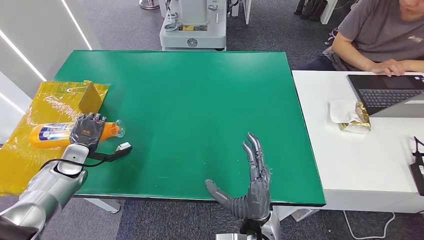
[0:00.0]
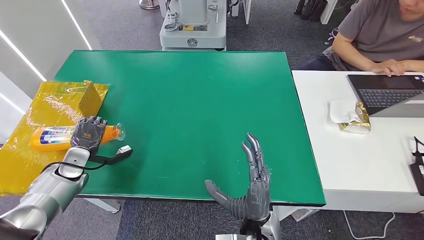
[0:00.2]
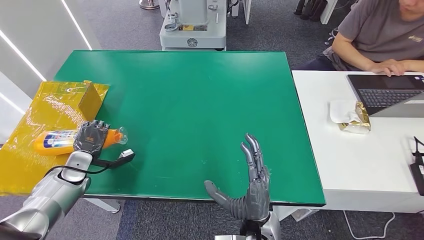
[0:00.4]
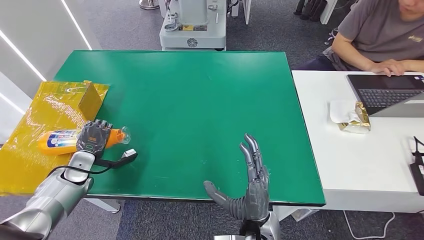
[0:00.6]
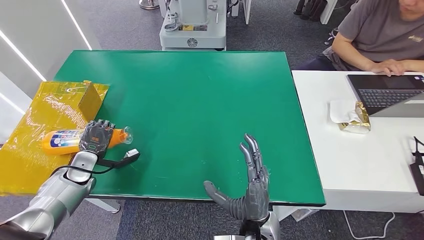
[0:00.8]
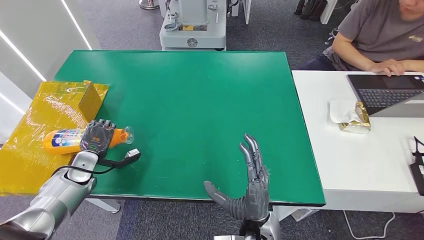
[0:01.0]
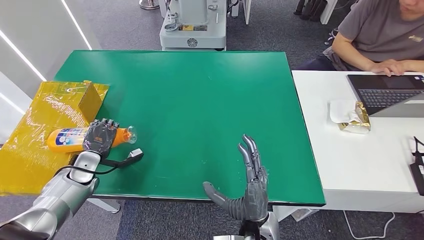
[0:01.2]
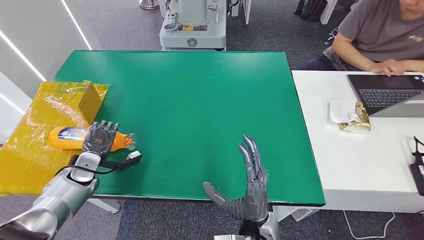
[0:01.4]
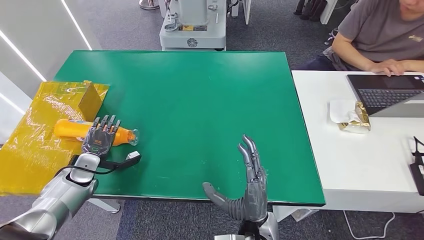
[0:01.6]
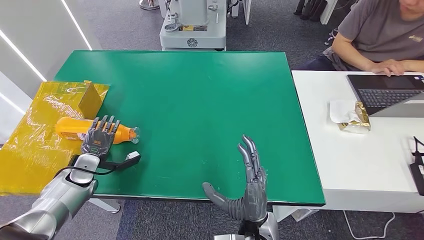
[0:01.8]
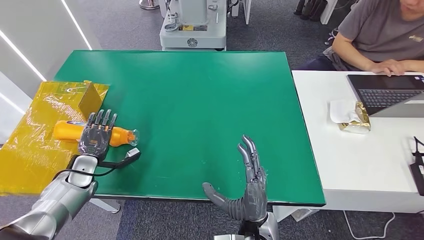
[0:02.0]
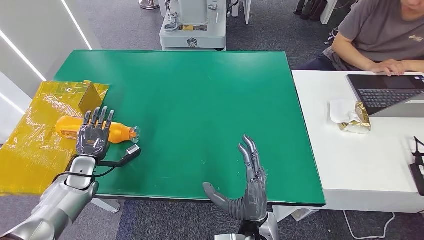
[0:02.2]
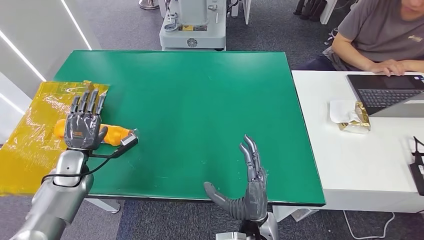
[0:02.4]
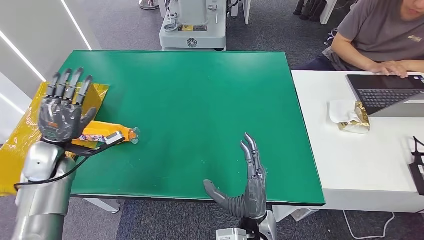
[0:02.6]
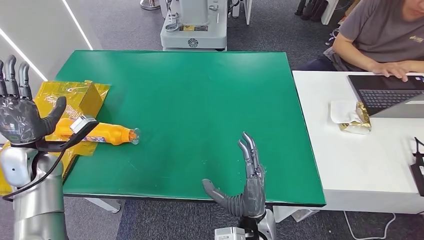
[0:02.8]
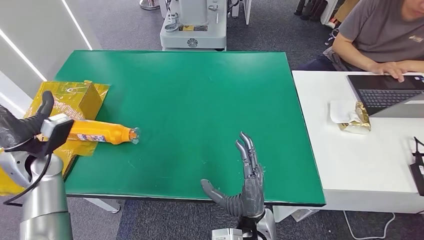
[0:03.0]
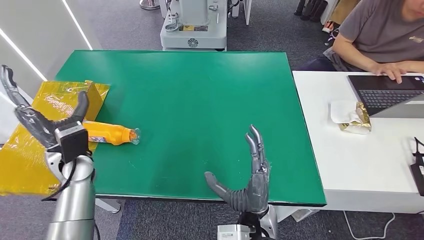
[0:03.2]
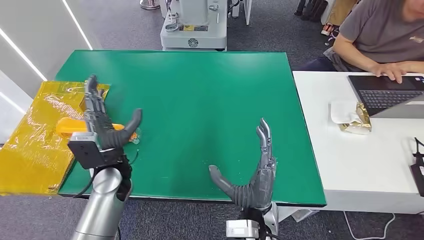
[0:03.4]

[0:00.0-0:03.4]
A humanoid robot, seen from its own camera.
Step, 0:00.0 to 0:03.2: Turn the bottle to the front side.
0:00.0 to 0:01.6: The hands move only a little.
0:01.6 to 0:03.4: The left hand moves to the right and upward, roughly 20 cm.

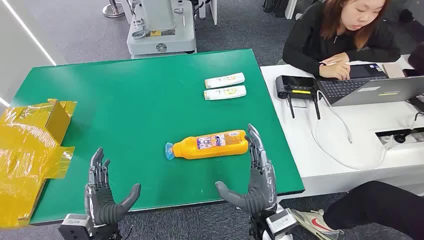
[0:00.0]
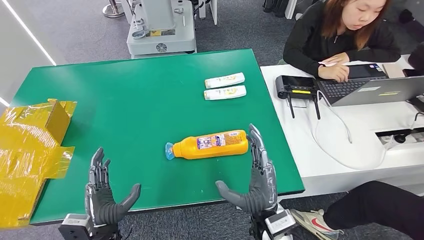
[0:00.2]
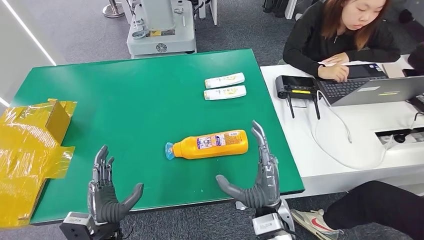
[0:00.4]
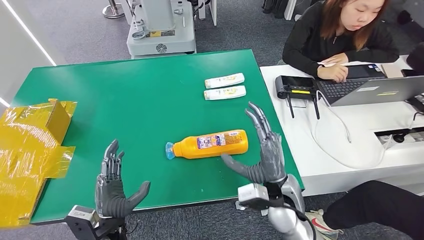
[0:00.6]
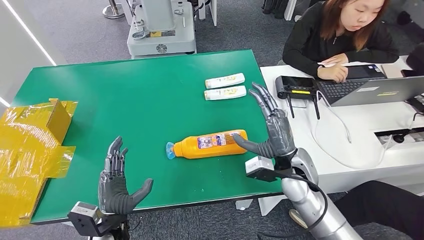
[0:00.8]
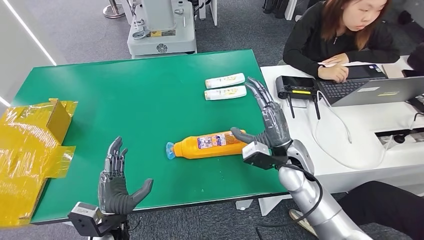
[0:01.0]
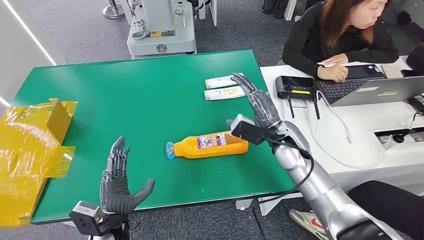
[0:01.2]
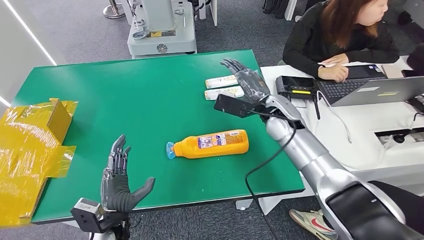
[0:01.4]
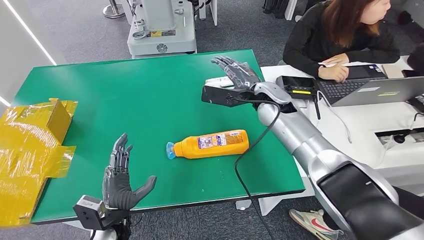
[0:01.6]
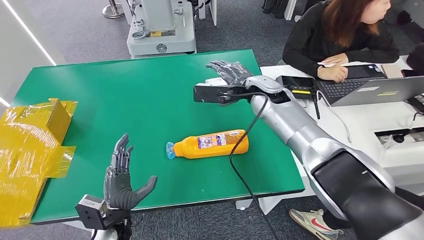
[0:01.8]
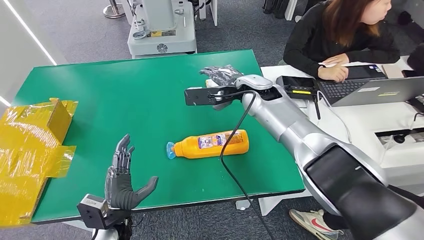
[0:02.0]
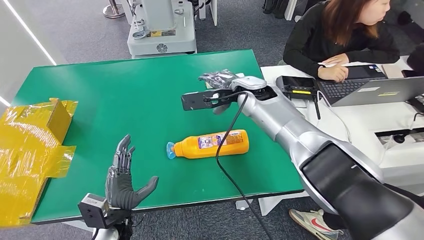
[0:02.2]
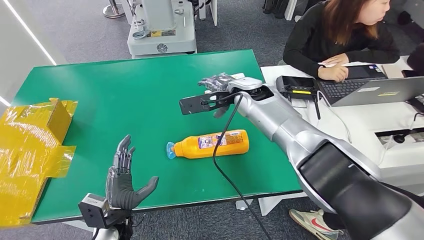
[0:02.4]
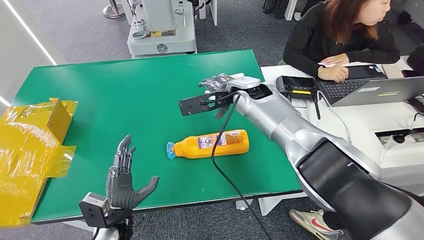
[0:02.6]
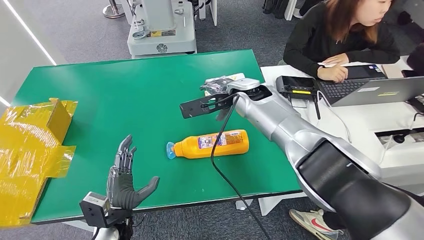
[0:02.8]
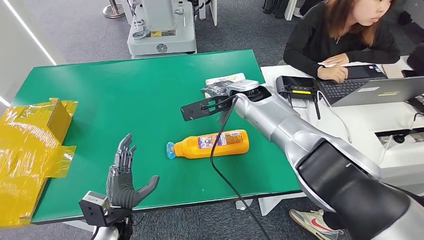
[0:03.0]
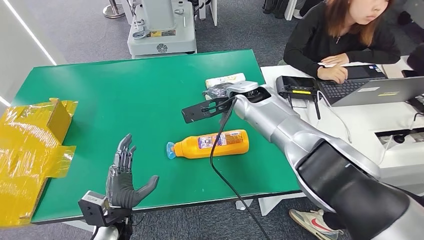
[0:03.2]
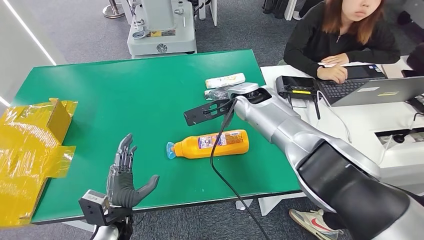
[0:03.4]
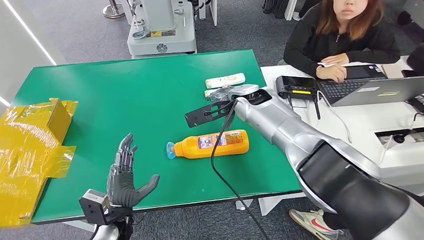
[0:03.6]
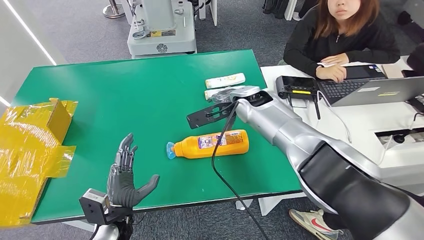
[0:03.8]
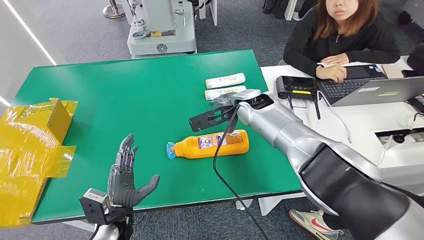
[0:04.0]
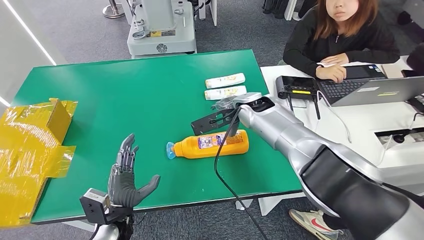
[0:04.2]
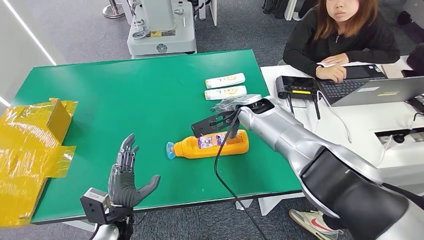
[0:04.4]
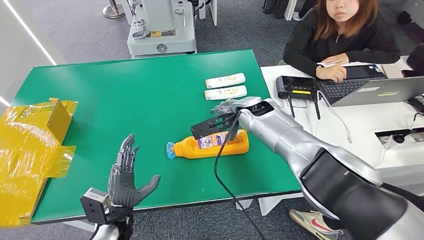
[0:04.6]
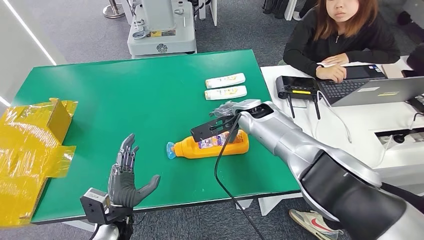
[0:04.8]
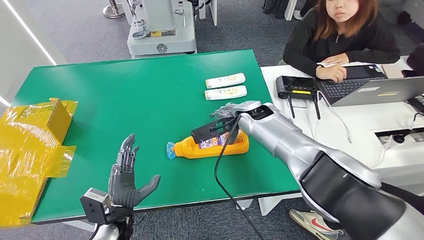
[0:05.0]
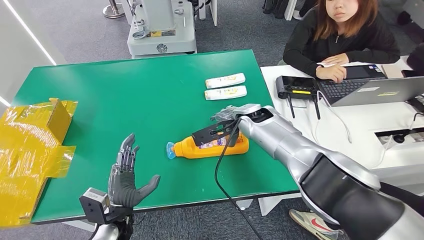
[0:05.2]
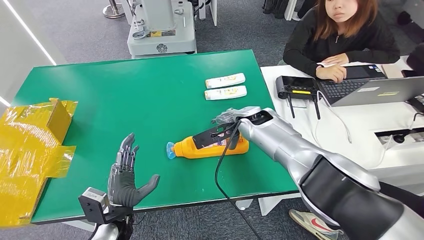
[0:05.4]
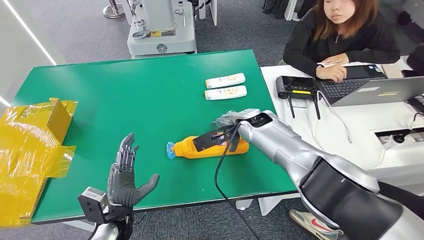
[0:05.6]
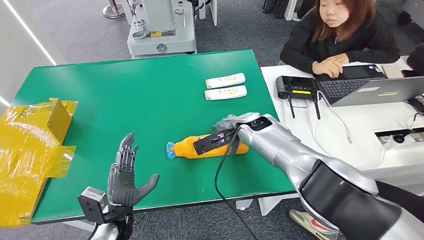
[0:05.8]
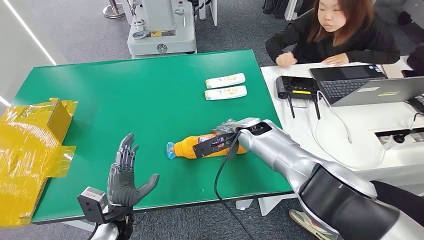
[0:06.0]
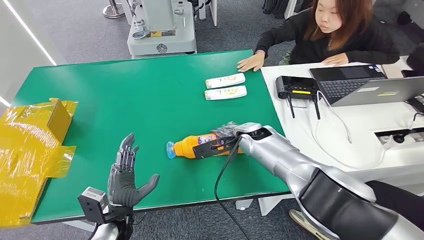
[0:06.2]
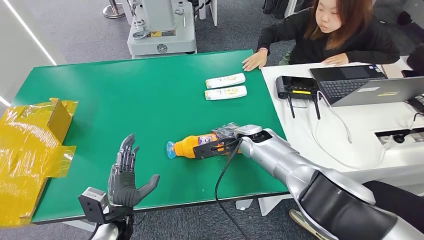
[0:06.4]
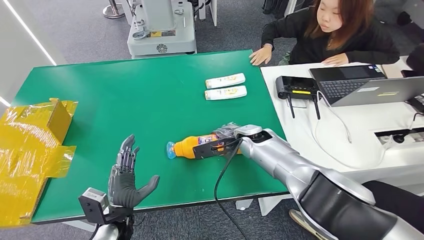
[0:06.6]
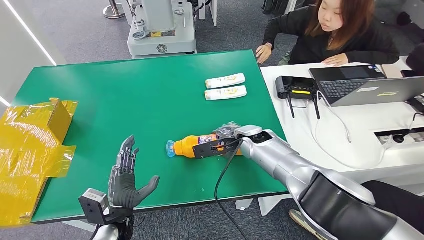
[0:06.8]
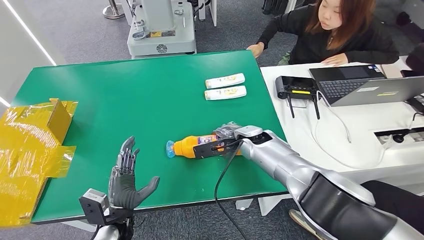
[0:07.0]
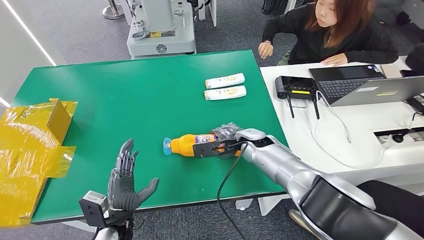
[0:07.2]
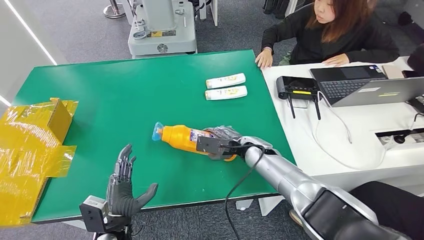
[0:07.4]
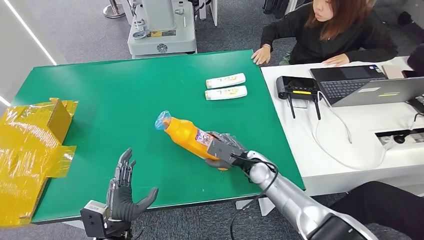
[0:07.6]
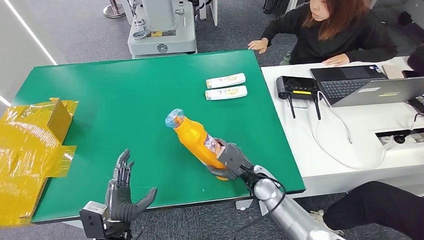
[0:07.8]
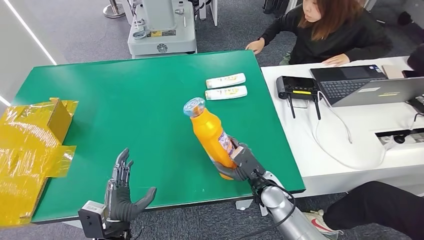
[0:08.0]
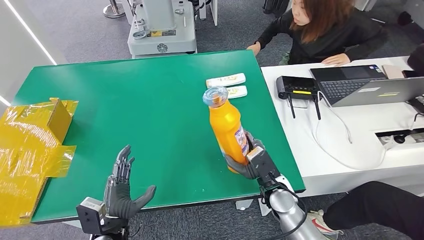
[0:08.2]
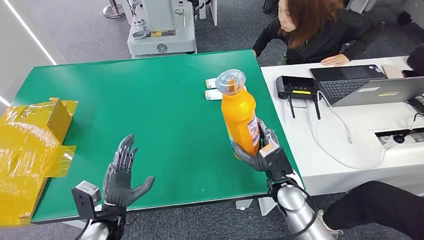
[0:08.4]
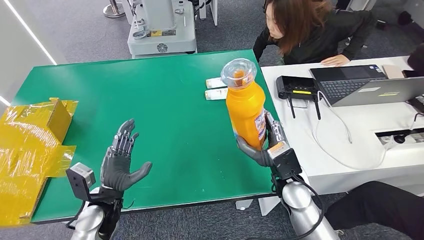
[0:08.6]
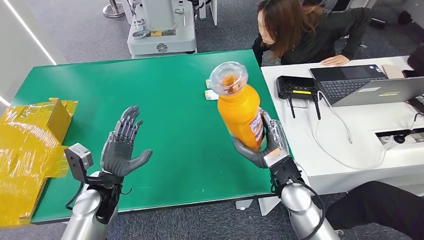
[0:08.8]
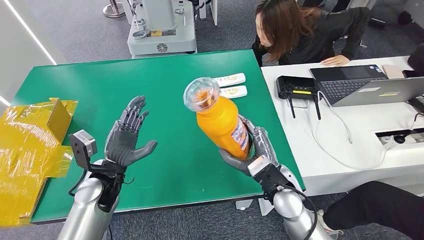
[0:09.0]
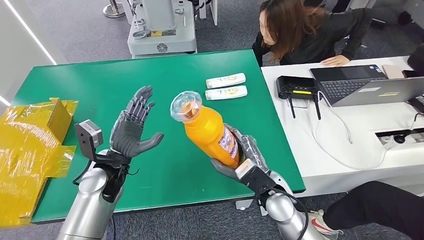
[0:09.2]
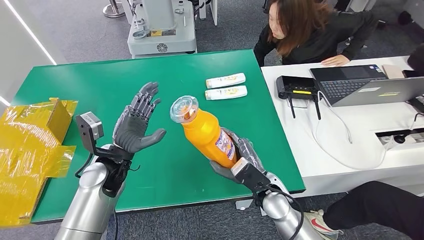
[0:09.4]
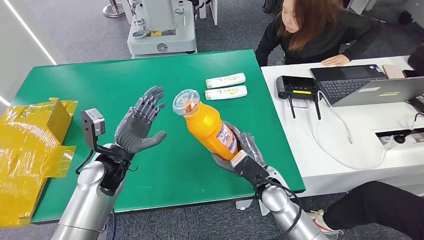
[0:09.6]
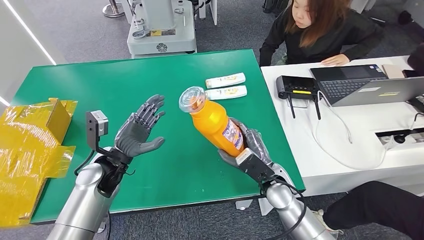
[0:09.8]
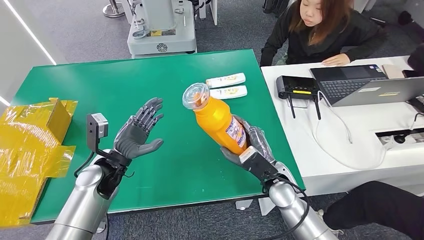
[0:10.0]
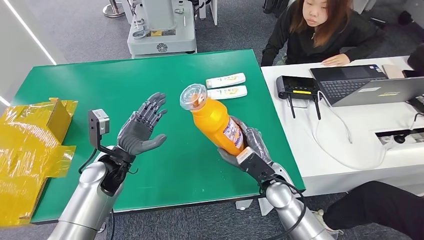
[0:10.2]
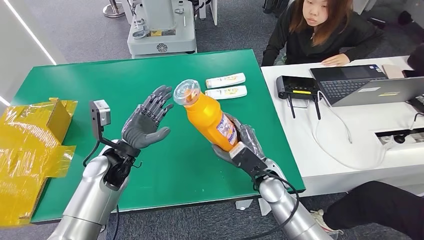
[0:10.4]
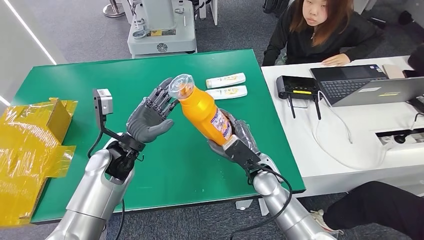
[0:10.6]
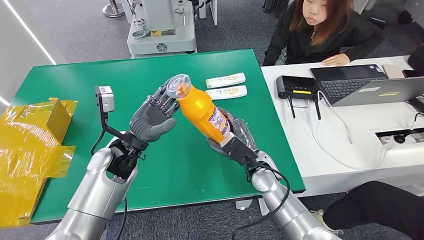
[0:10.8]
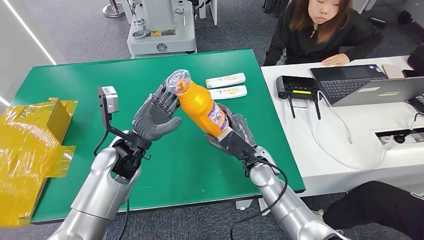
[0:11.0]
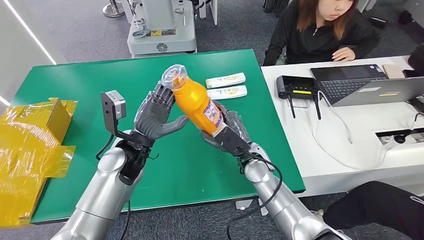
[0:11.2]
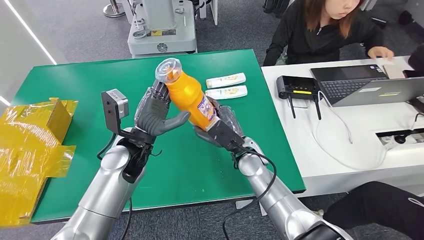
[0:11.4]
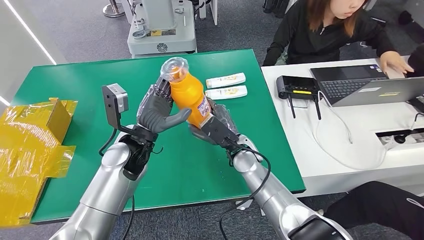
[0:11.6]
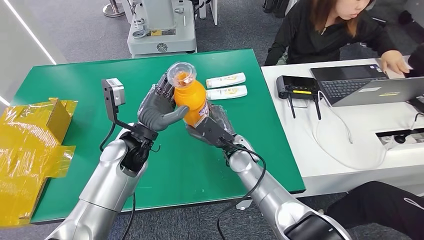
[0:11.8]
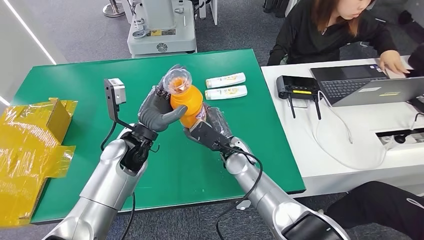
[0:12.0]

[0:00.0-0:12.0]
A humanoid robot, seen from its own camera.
Step, 0:00.0 to 0:08.2: Pick up the bottle from the table.
0:01.6 to 0:03.0: The right hand shifts roughly 5 cm to the left.
0:03.0 to 0:04.4: The hands stay close to where they were, moving slightly.
0:04.4 to 0:06.0: The right hand goes about 5 cm downward.
0:06.0 to 0:07.6: The right hand heads downward and backward, covering some 15 cm.
0:07.6 to 0:09.0: The right hand heads backward and upward, covering approximately 10 cm, while the left hand moves forward and upward, some 15 cm.
0:09.0 to 0:10.4: There are only small adjustments of the hands.
0:10.4 to 0:12.0: The left hand travels to the right by approximately 5 cm; the right hand is displaced to the left and forward by about 10 cm.

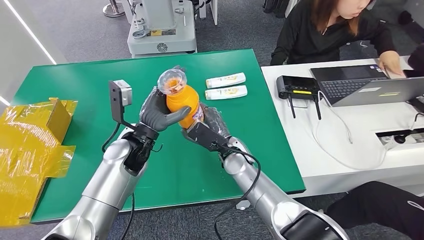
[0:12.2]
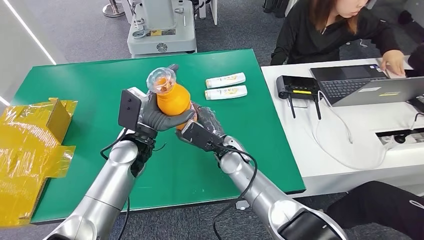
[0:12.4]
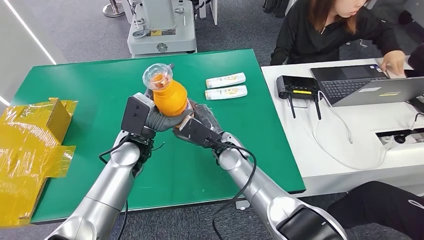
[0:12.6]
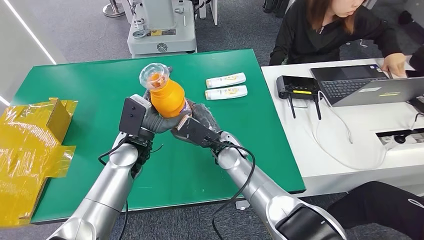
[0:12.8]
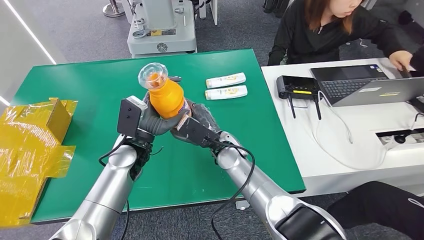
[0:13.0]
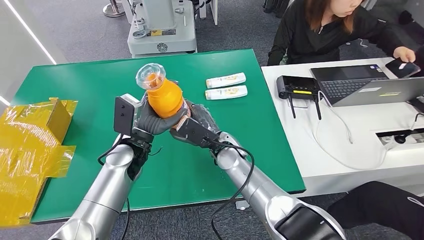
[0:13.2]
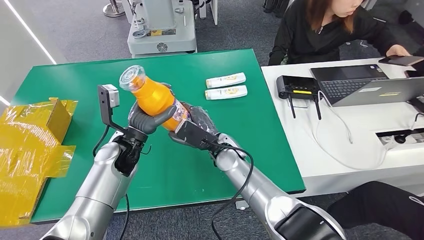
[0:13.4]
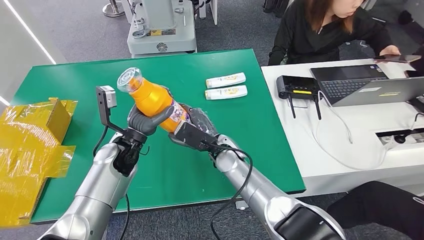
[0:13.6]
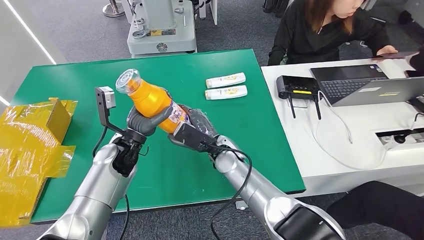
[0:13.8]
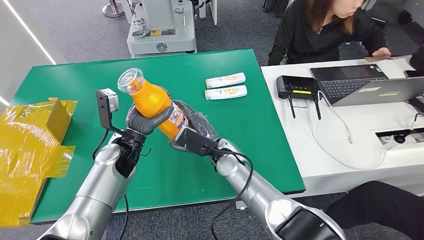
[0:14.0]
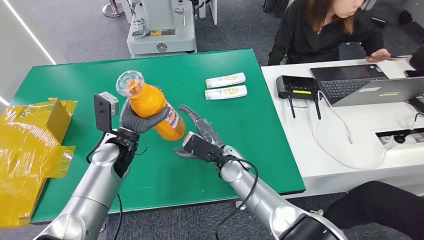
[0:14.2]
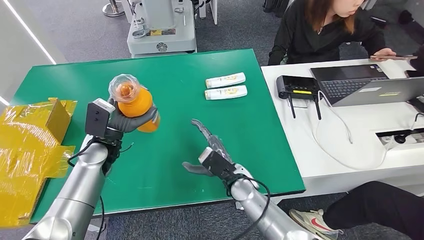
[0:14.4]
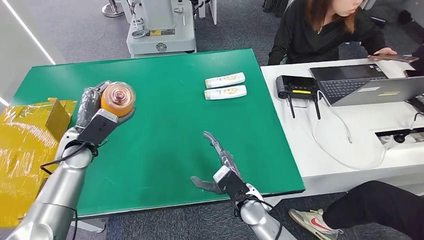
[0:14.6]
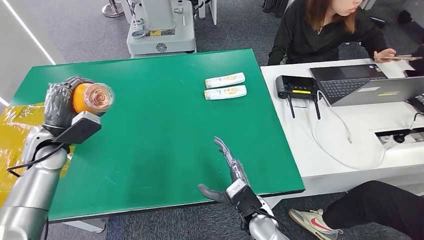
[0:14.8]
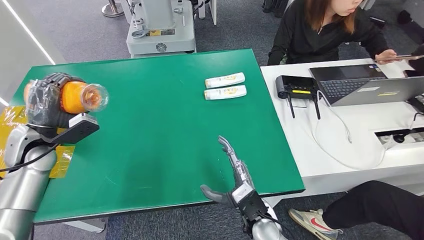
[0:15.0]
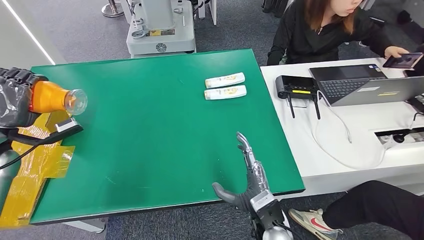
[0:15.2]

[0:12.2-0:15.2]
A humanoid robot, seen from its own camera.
0:12.2 to 0:13.8: The left hand moves roughly 5 cm.
